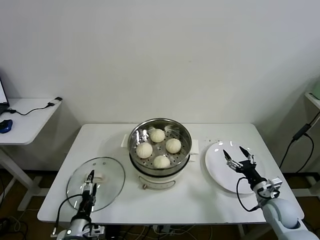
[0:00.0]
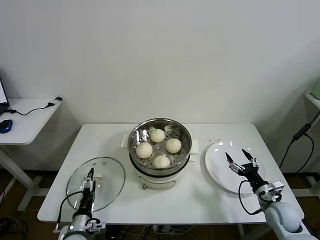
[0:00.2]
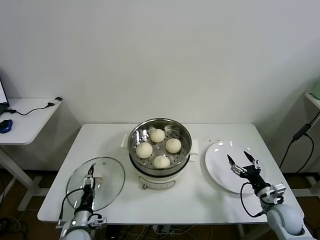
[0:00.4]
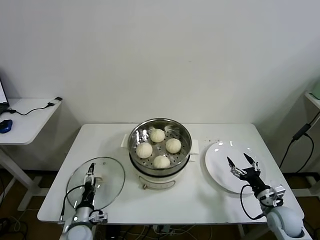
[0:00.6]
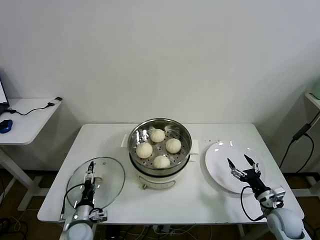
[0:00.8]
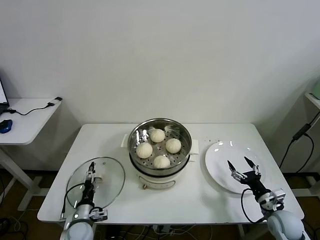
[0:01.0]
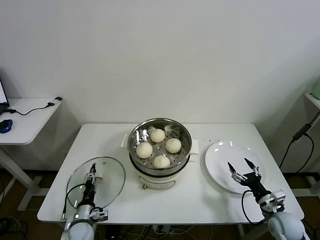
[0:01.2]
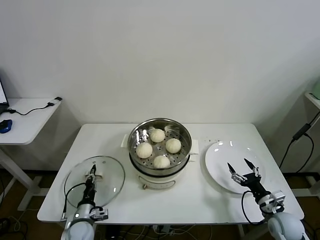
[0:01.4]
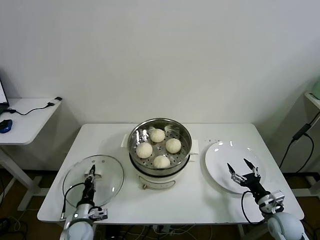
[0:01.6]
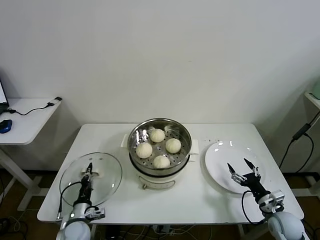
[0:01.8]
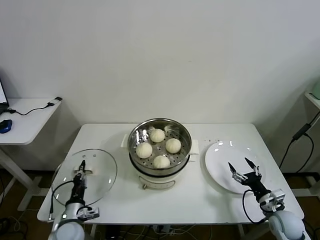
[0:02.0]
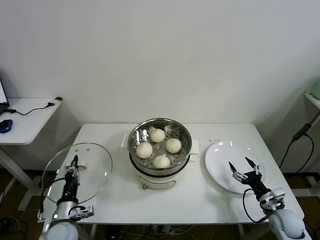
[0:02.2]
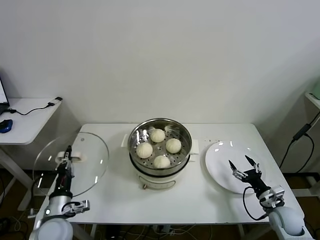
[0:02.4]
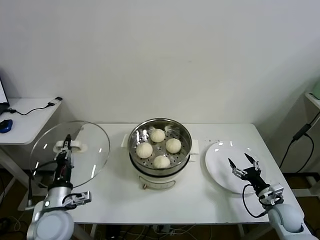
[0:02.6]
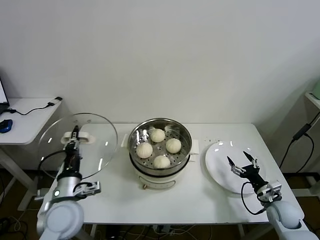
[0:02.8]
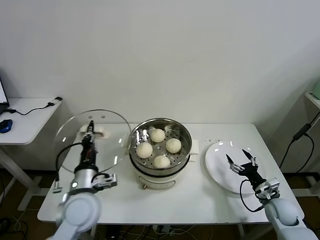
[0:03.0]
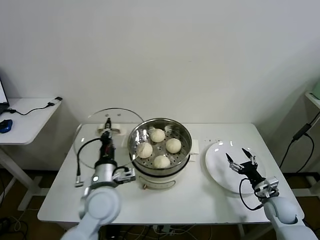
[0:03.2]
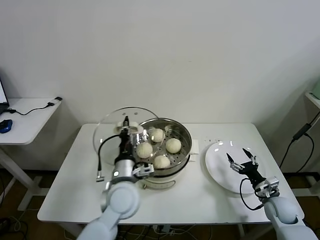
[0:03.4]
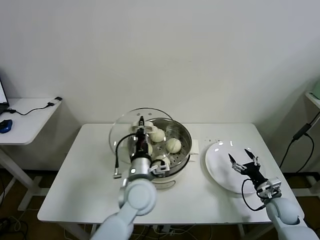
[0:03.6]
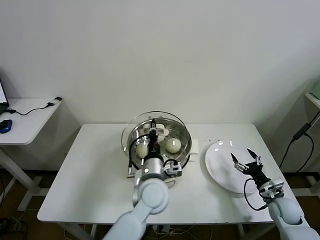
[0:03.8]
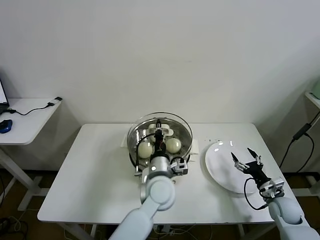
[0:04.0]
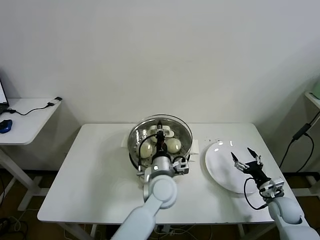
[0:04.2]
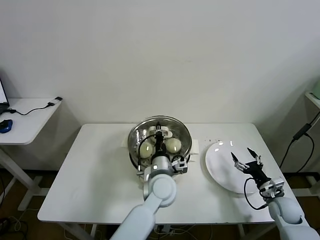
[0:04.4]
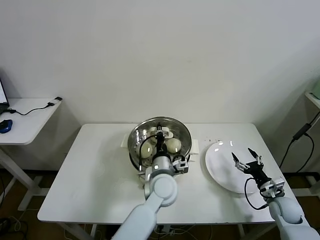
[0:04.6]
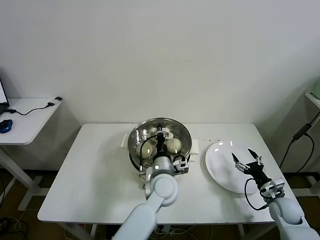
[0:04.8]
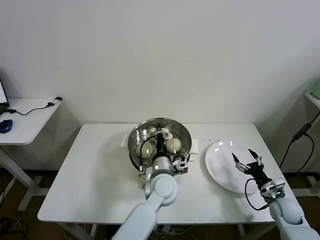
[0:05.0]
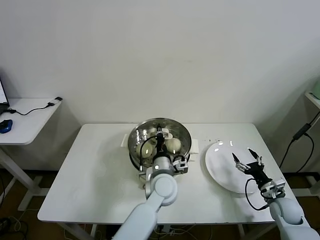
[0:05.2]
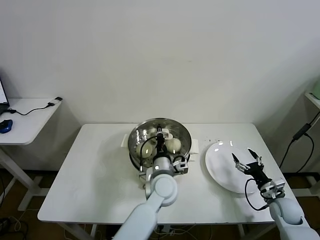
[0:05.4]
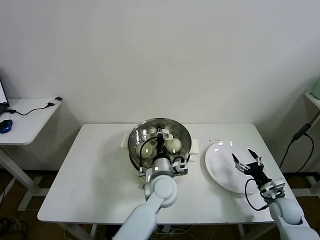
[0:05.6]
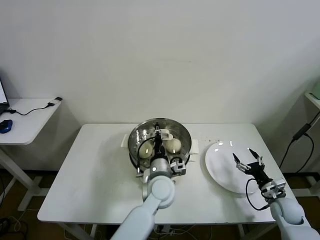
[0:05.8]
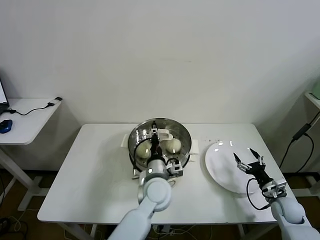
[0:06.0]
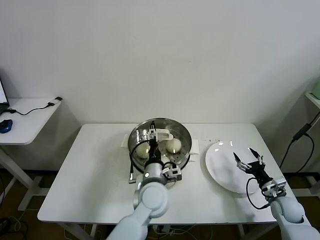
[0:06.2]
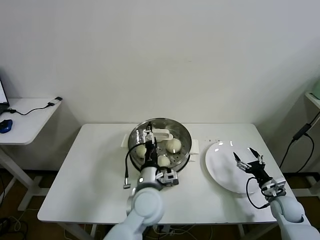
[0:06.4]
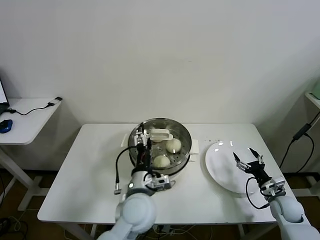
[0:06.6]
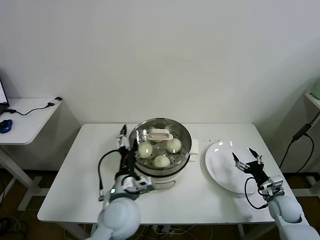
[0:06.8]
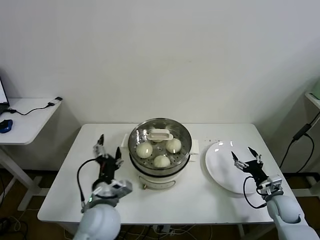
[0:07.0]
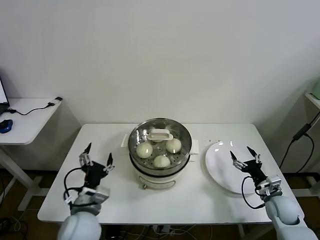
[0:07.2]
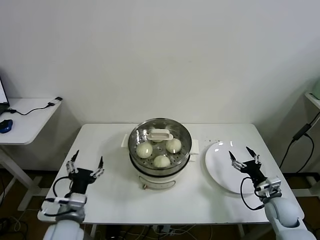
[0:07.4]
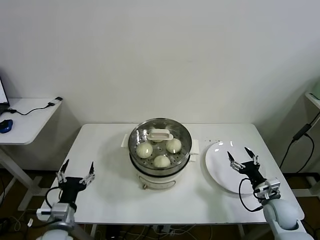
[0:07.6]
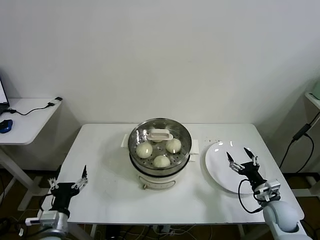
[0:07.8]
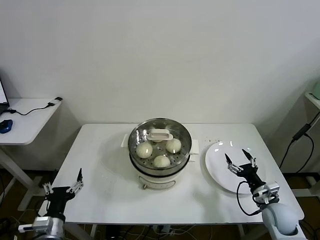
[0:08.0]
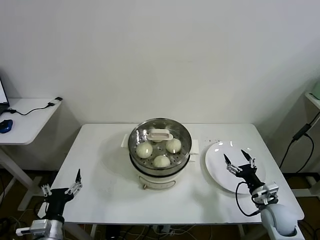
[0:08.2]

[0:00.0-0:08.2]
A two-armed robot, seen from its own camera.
Task of the whole recording: take steamed baozi put them in steamer then cover it.
Step, 0:02.0 to 0:06.2: Place the pot lid on the steamer with left gripper.
0:00.0 to 0:01.6: The right gripper moves some 5 cm. Meanwhile the left gripper travels forward and downward by some 10 cm, and closes.
0:01.6 to 0:03.2: The left gripper heads upward and to the right, covering roughly 25 cm, while the right gripper moves forward, approximately 5 cm.
0:03.2 to 0:05.0: The left gripper moves to the right, approximately 20 cm.
0:05.0 to 0:06.6: The left gripper is displaced backward and to the left by roughly 10 cm, and opens up.
0:06.6 to 0:08.2: The left gripper moves to the left and backward, roughly 30 cm. The right gripper goes about 5 cm to the left.
